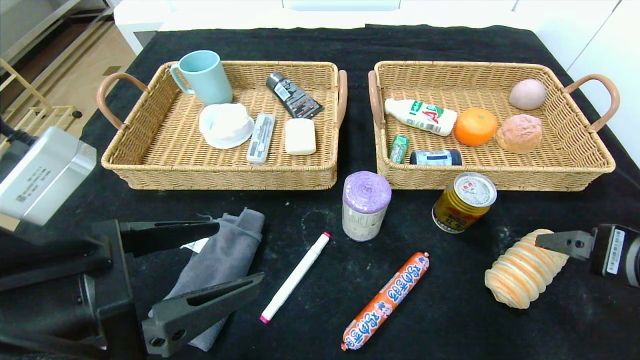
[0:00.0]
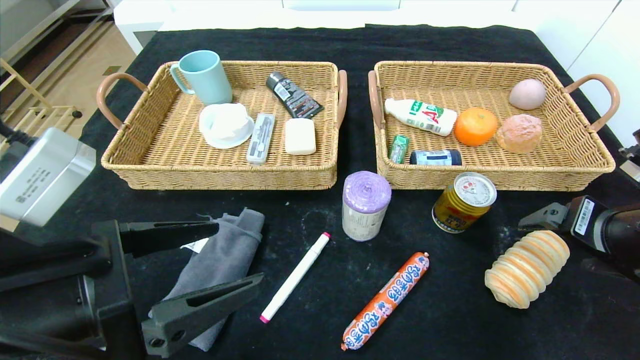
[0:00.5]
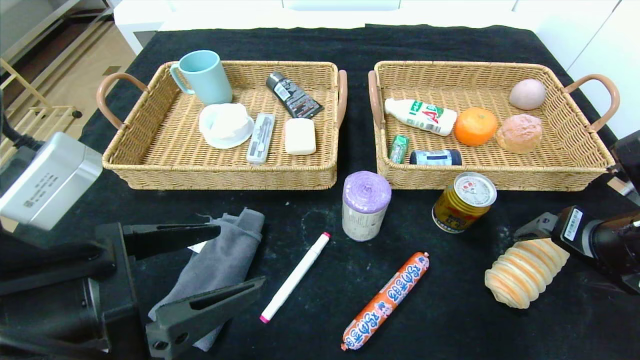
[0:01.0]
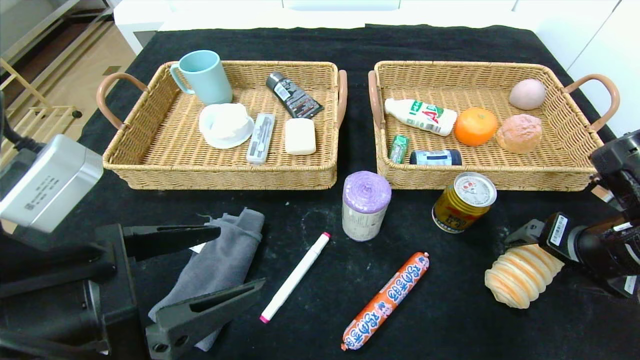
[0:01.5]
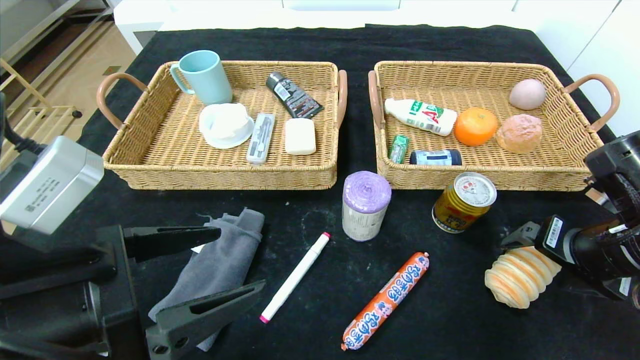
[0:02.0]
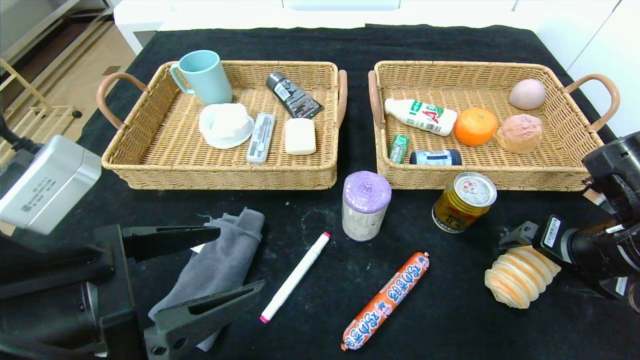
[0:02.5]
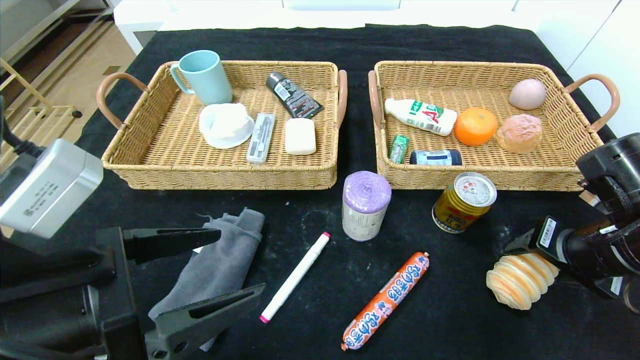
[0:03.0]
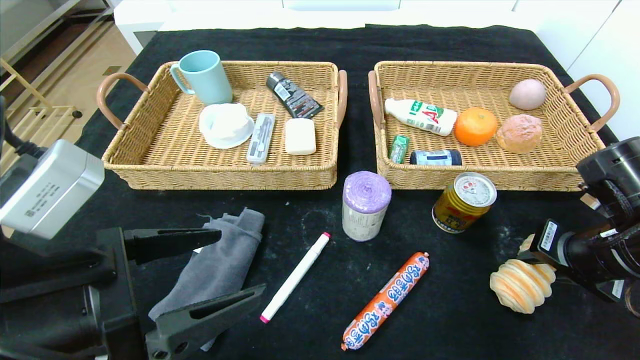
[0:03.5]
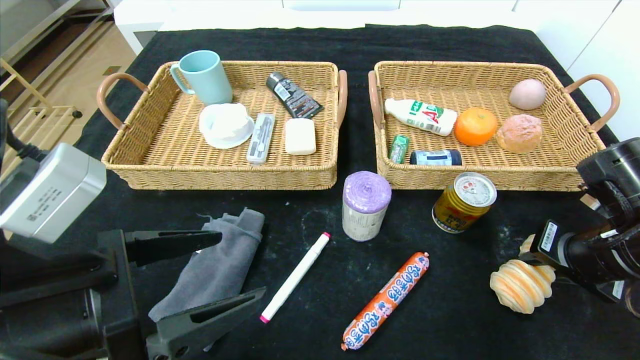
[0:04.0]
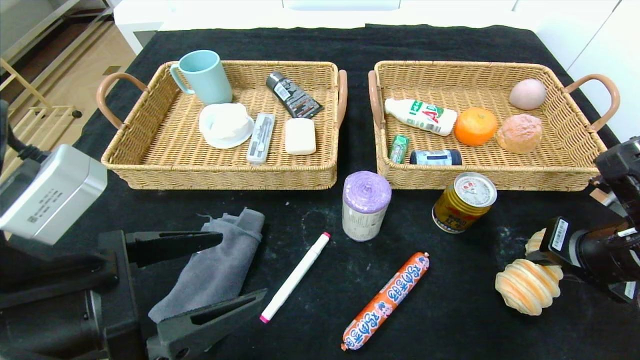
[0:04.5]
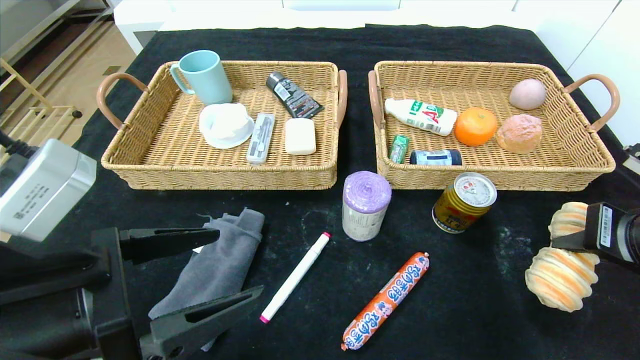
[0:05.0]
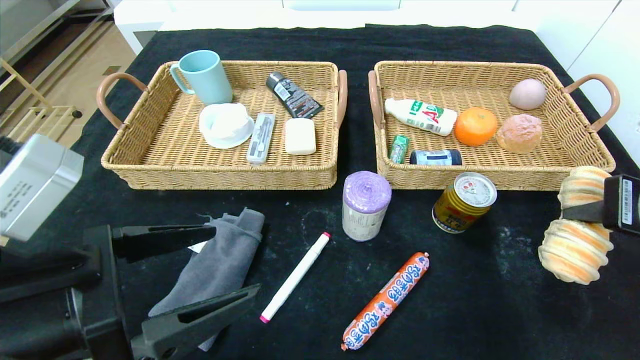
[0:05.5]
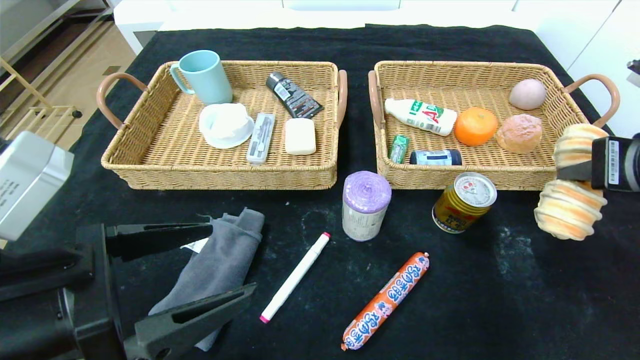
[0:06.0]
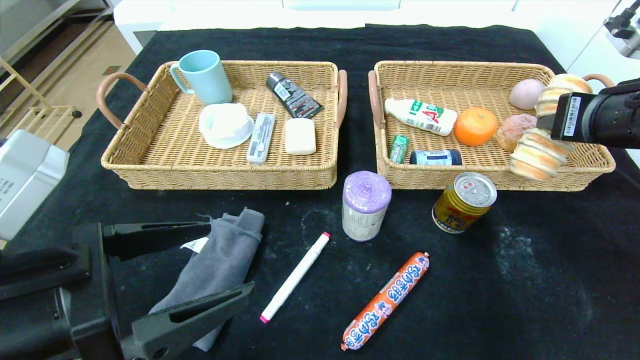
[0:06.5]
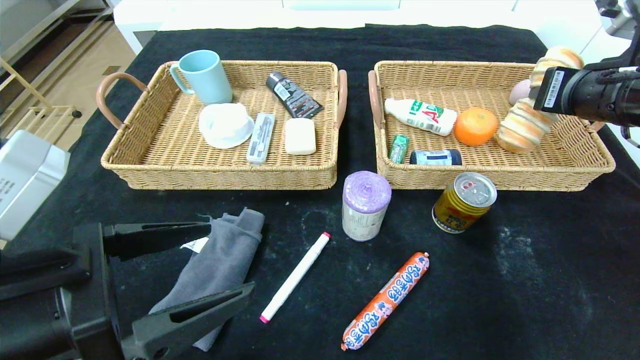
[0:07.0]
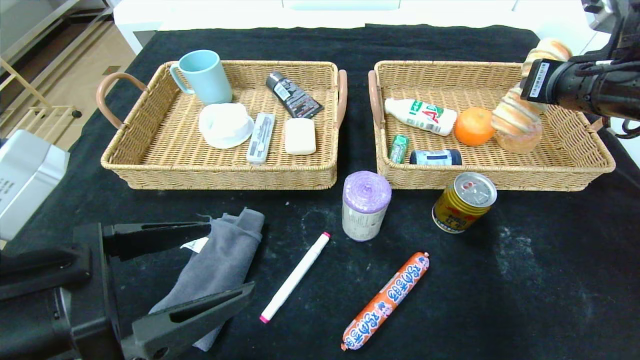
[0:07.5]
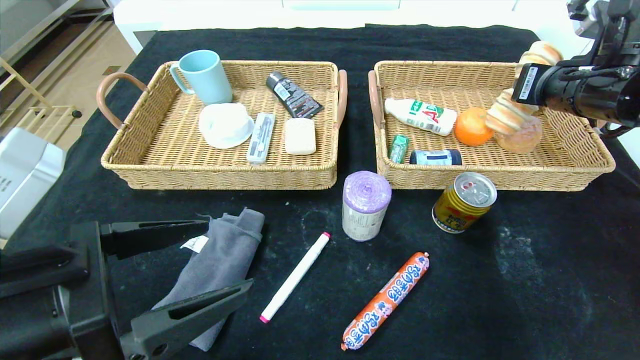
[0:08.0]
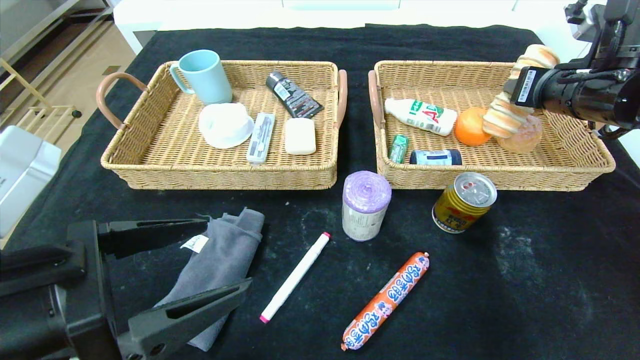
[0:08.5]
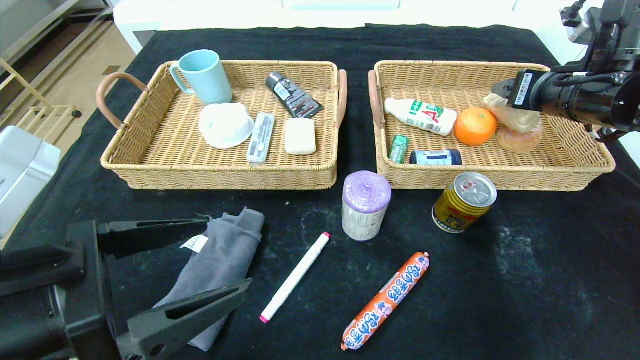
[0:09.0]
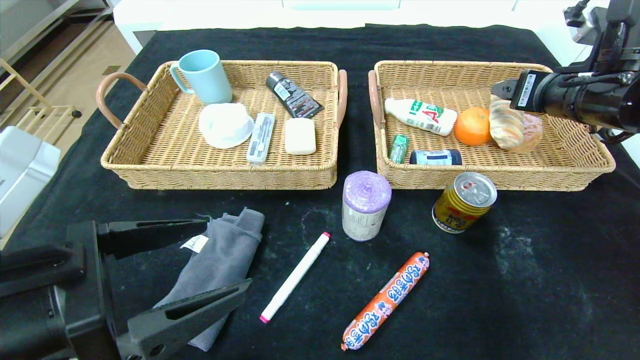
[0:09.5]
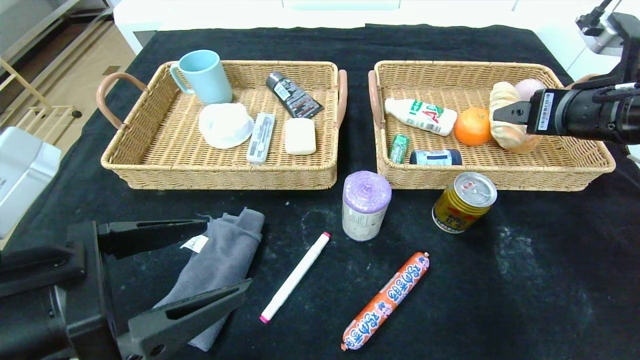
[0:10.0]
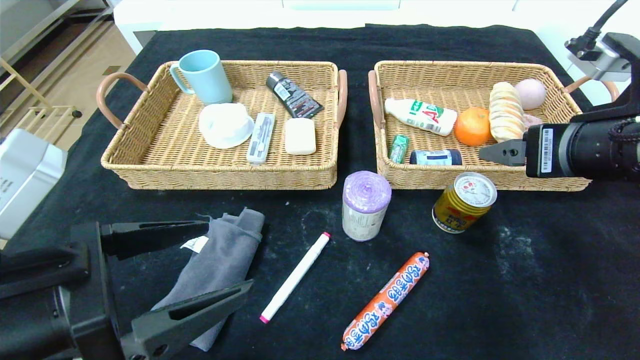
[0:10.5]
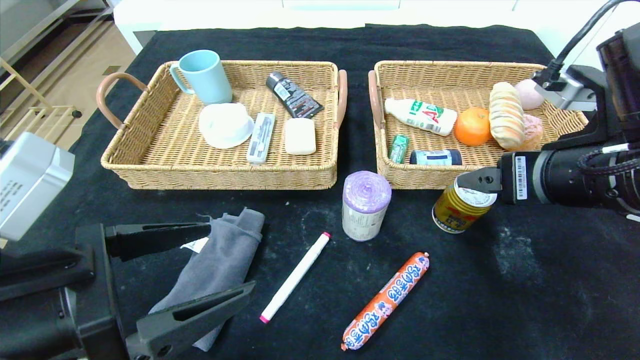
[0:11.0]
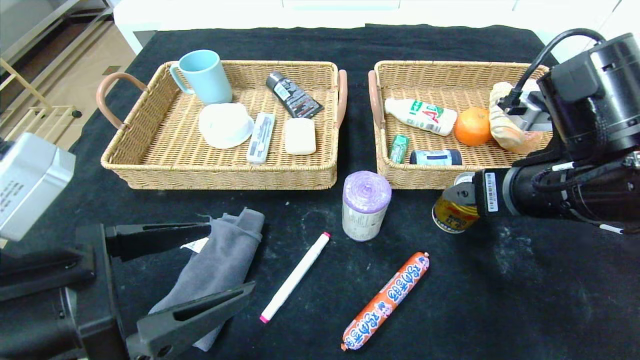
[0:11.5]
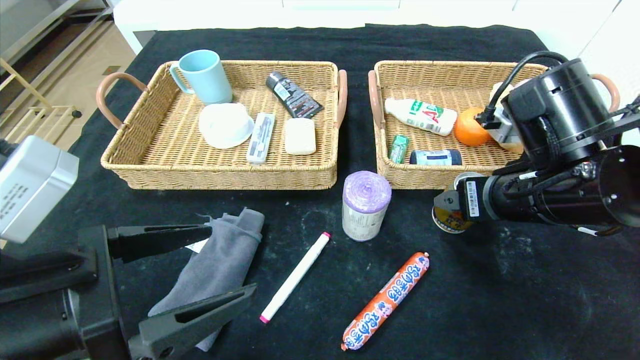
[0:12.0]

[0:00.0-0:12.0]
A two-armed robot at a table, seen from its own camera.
Step, 0:00.0 to 0:10.5: Pick up the long bread and put it in the right basket.
0:00.0 to 0:02.0: The right gripper heads forward, covering roughly 5 cm.
0:02.0 to 0:04.0: The right gripper closes.
0:04.0 to 0:06.0: The right gripper shifts some 10 cm upward.
0:06.0 to 0:08.0: The right gripper goes approximately 15 cm forward.
0:08.0 to 0:10.0: The right gripper travels backward by some 5 cm, and opens its fingers.
0:10.0 to 0:12.0: The right gripper moves to the left and downward, approximately 10 cm.

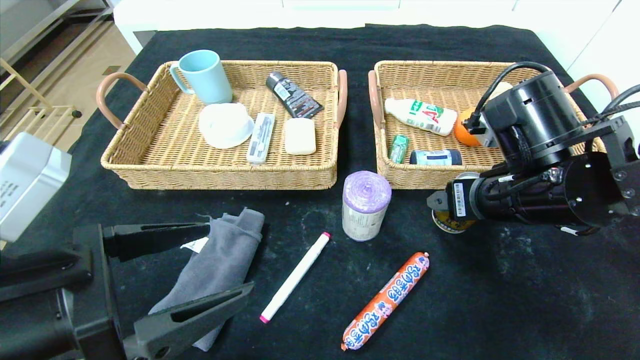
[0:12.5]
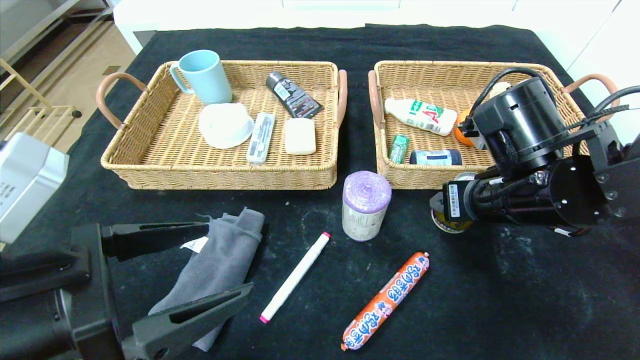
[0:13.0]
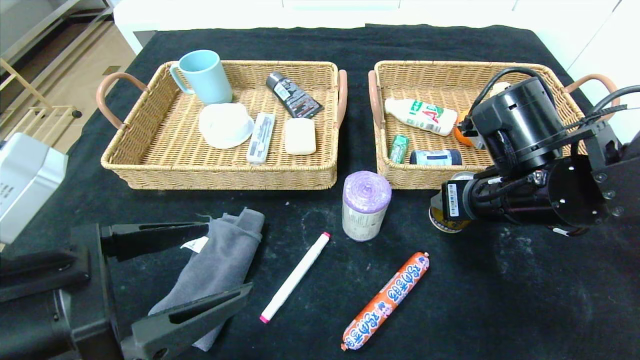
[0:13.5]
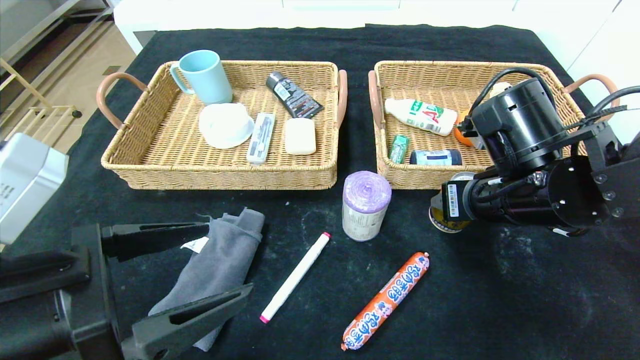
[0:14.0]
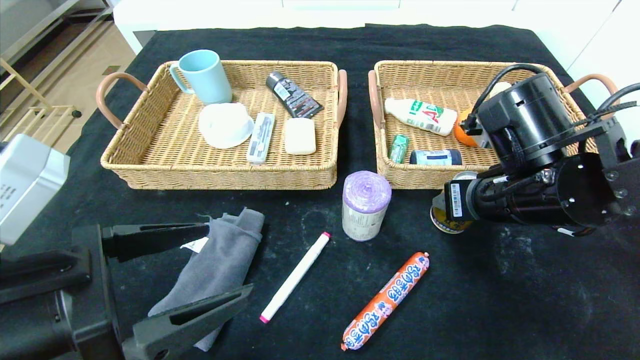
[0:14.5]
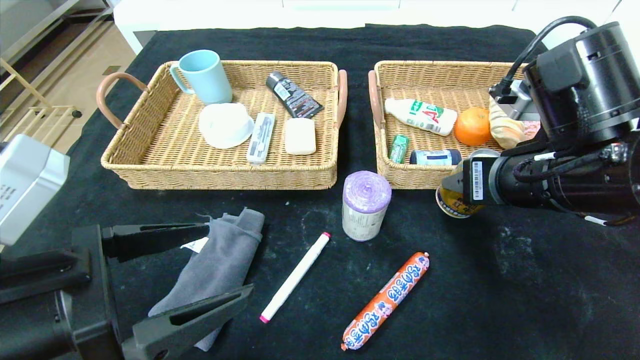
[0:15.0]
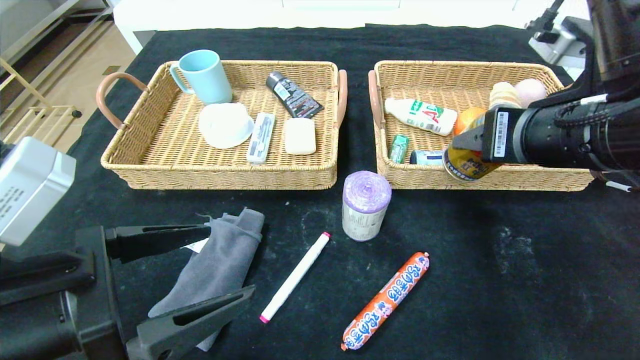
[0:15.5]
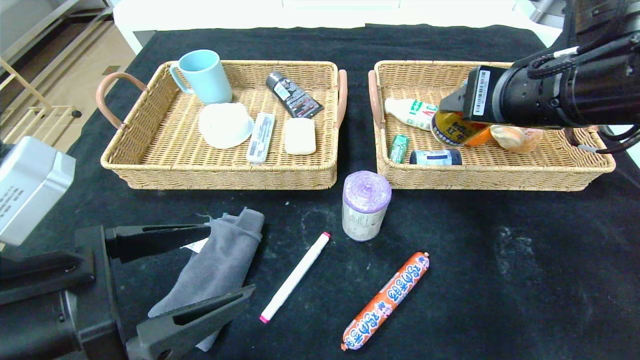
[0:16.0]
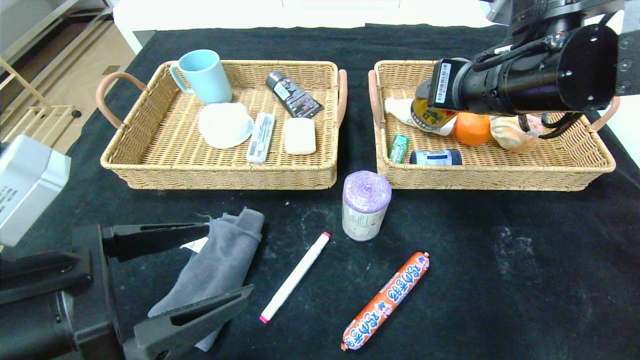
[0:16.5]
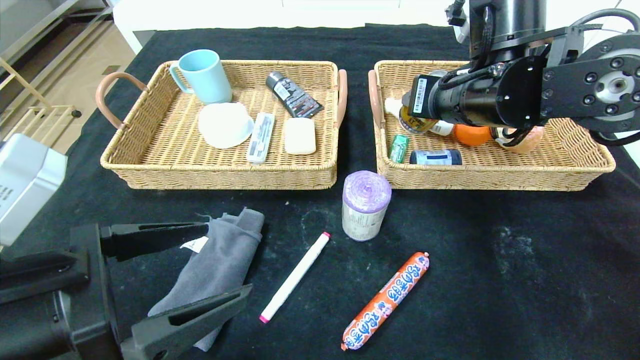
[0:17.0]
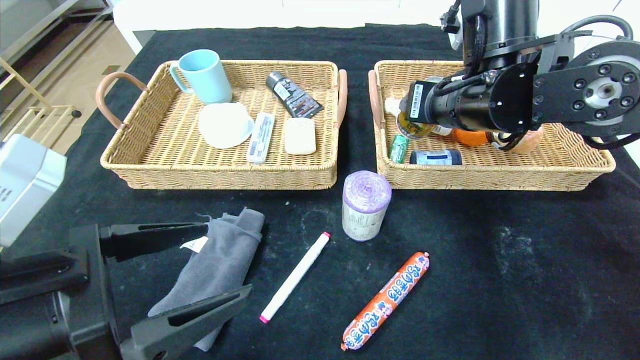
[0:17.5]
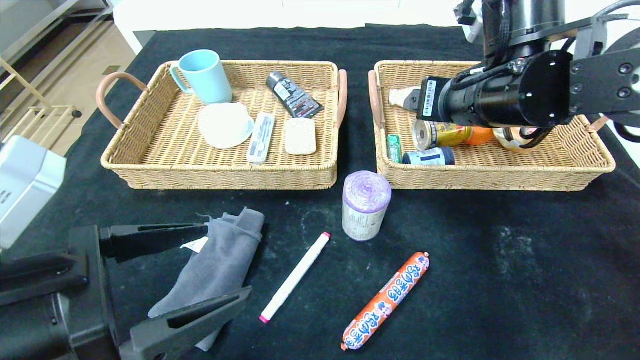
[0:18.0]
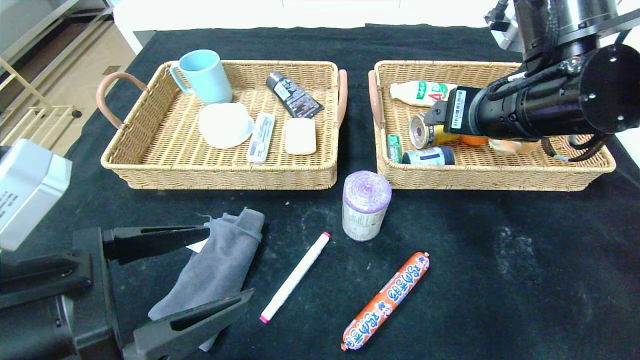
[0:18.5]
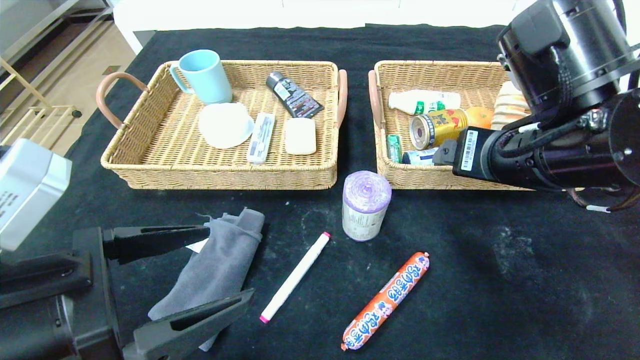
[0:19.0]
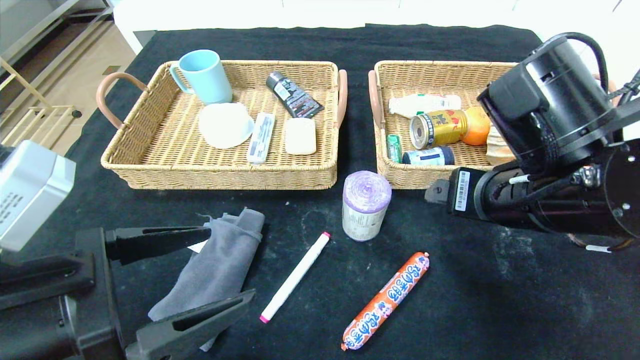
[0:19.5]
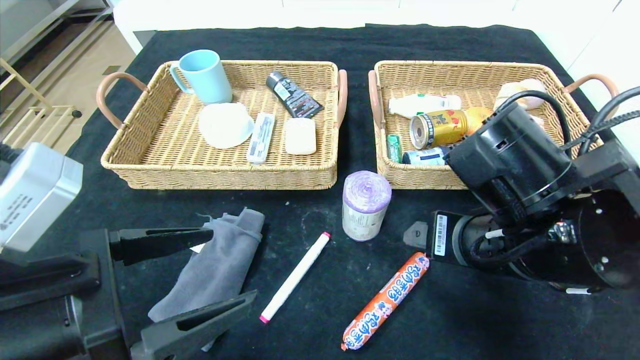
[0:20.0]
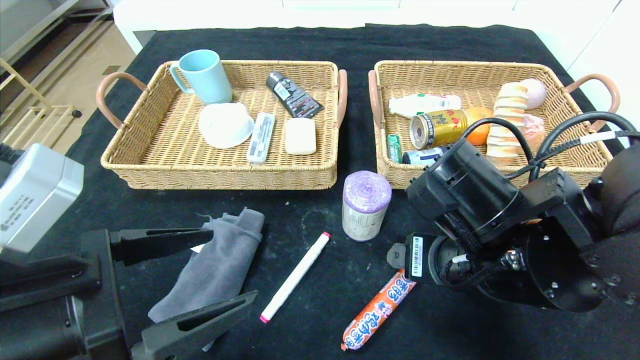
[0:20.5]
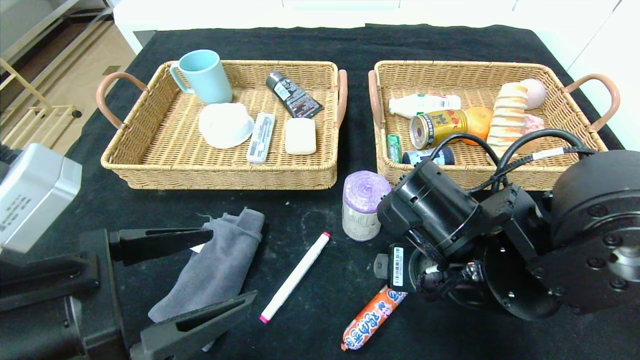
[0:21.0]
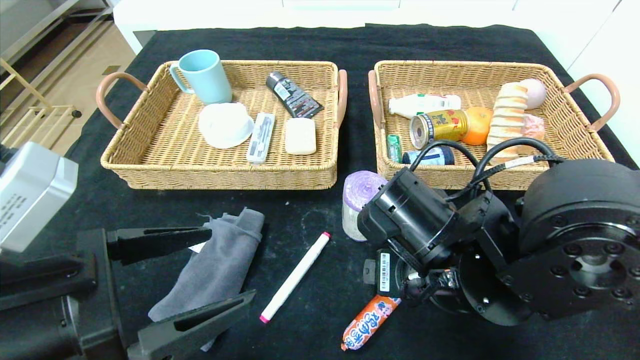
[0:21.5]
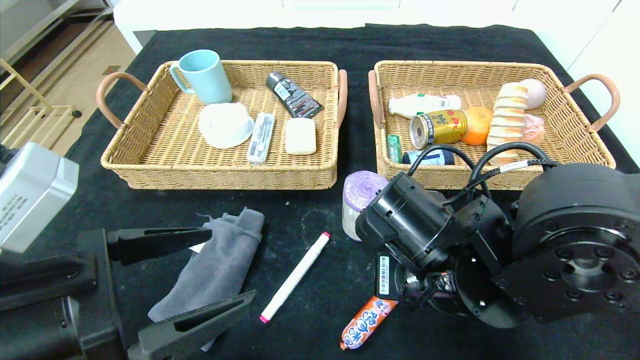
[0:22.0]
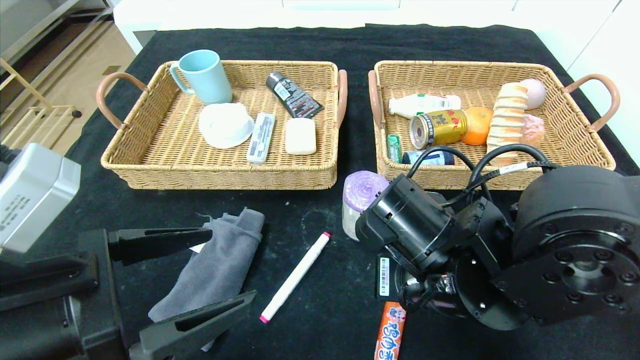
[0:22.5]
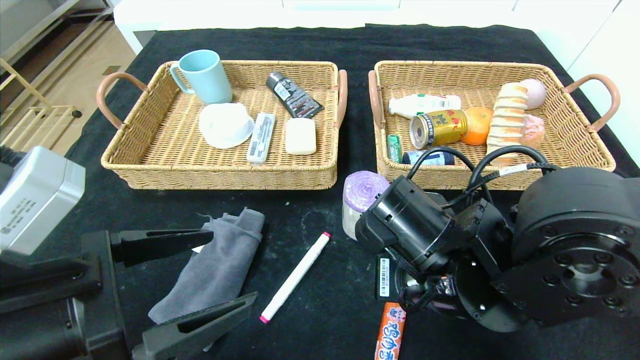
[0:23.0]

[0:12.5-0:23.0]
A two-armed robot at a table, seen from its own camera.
Step, 0:12.5 to 0:19.5: Pick up the red bull and put it in the right basket.
0:12.5 to 0:14.5: The right gripper closes its fingers.
0:14.5 to 0:16.5: The right gripper goes about 10 cm upward.
0:16.5 to 0:19.0: The right gripper travels backward by approximately 5 cm, and opens up.
0:19.0 to 0:21.0: The right gripper is displaced downward and to the left by approximately 10 cm.
0:21.0 to 0:23.0: The right gripper closes up.
